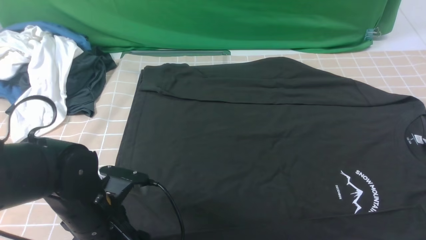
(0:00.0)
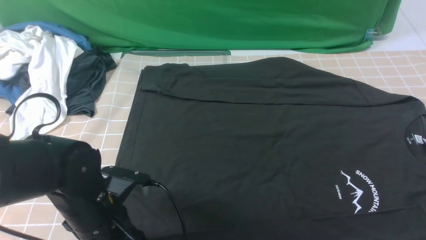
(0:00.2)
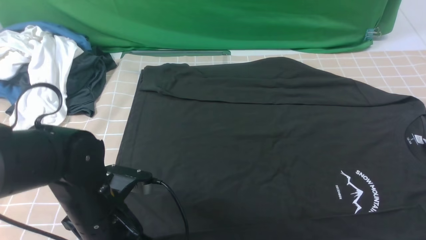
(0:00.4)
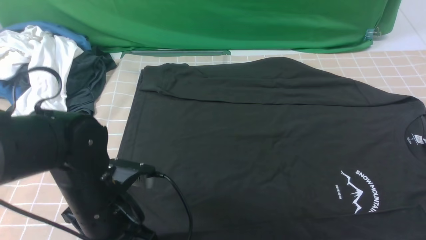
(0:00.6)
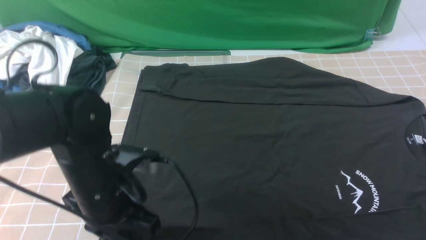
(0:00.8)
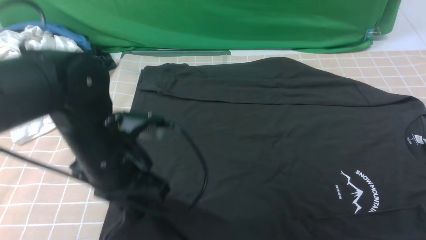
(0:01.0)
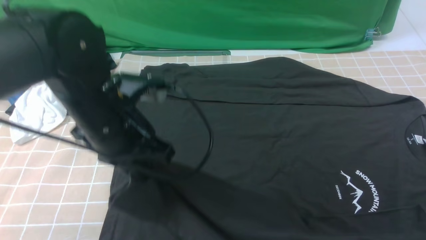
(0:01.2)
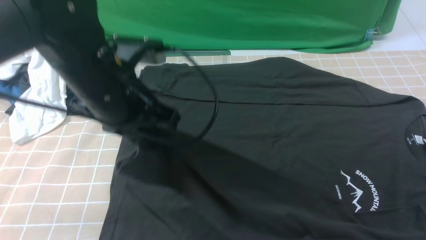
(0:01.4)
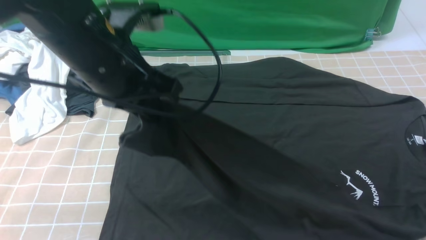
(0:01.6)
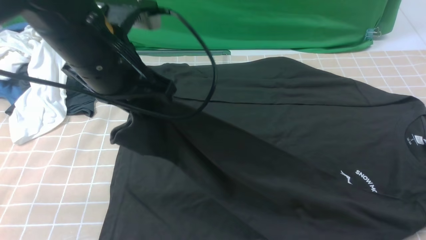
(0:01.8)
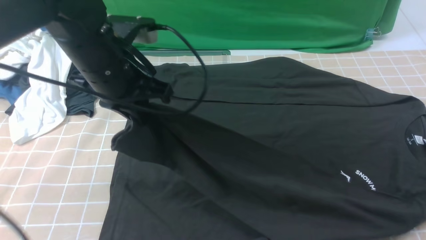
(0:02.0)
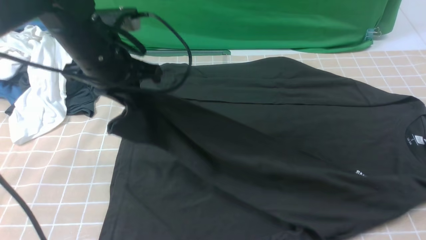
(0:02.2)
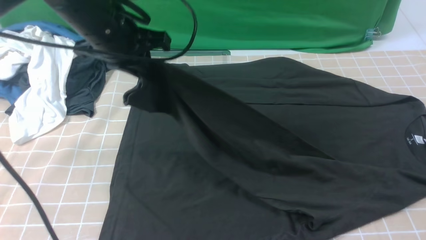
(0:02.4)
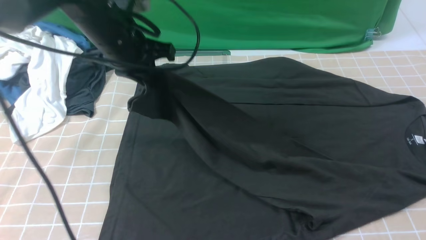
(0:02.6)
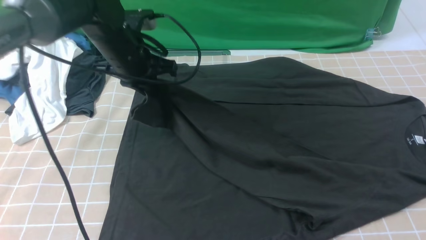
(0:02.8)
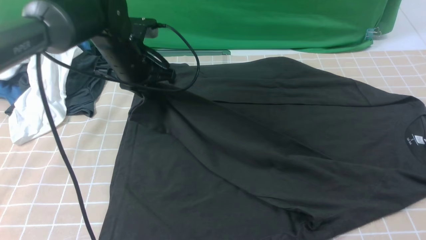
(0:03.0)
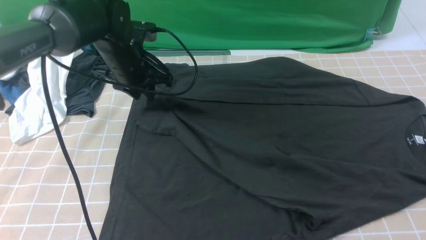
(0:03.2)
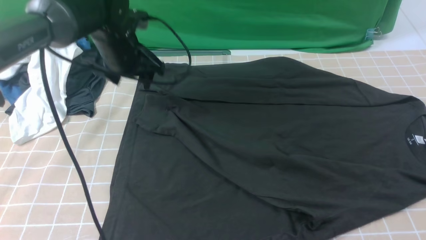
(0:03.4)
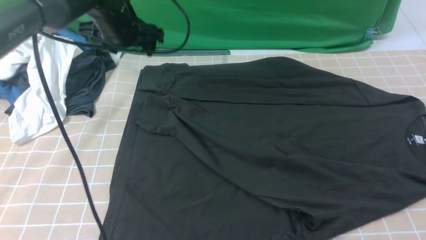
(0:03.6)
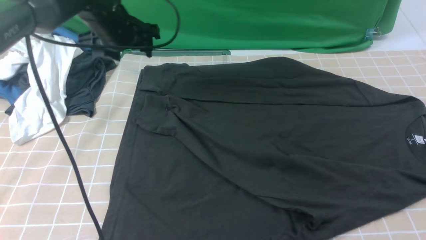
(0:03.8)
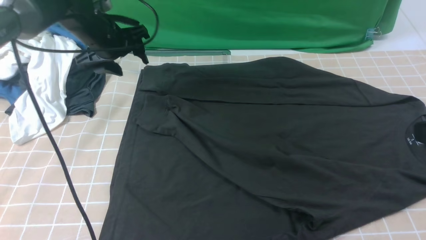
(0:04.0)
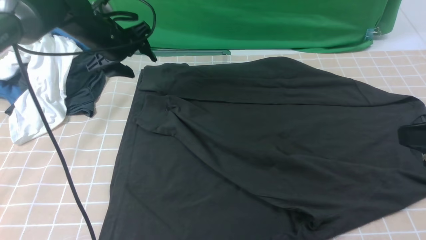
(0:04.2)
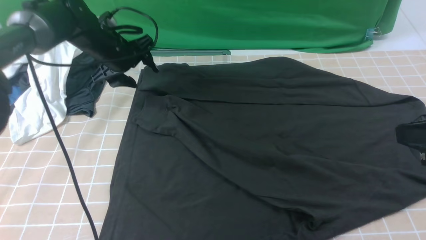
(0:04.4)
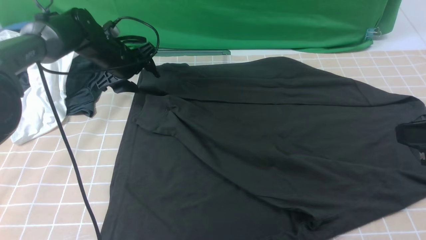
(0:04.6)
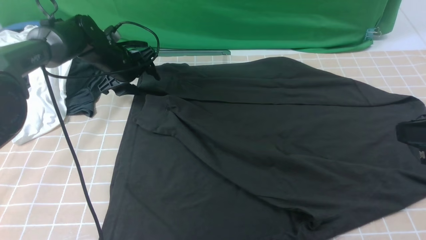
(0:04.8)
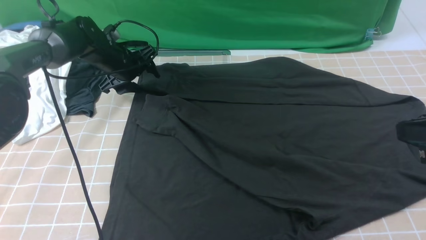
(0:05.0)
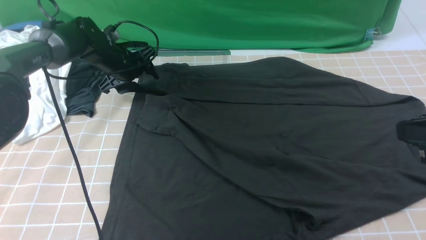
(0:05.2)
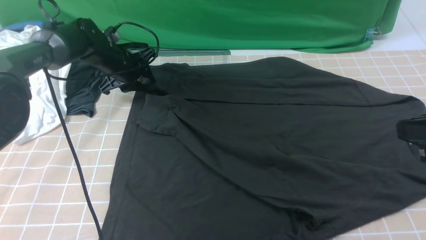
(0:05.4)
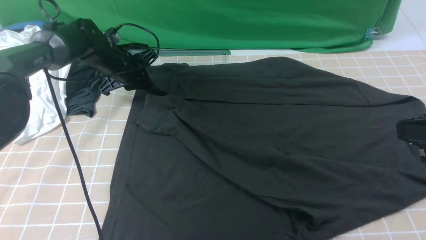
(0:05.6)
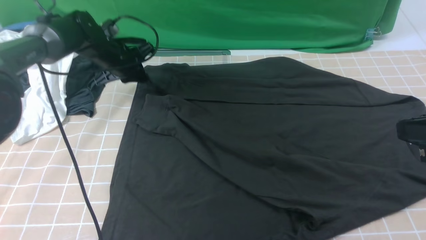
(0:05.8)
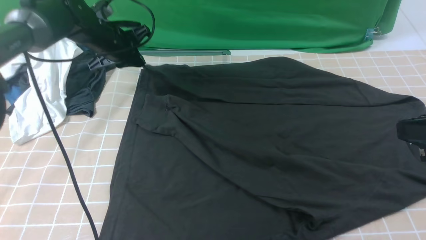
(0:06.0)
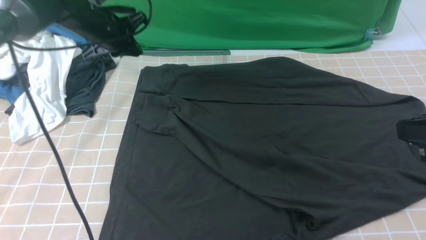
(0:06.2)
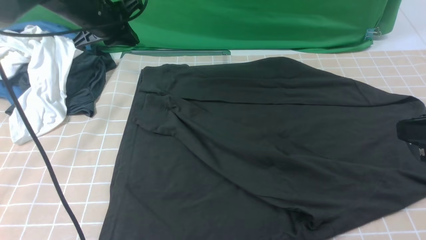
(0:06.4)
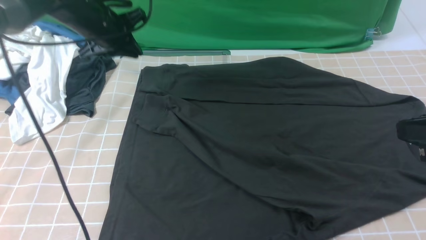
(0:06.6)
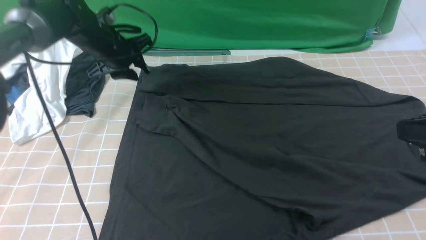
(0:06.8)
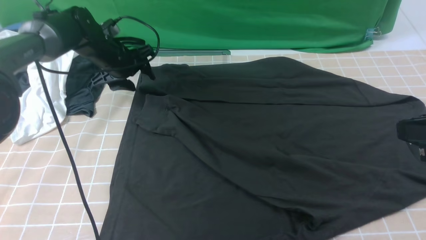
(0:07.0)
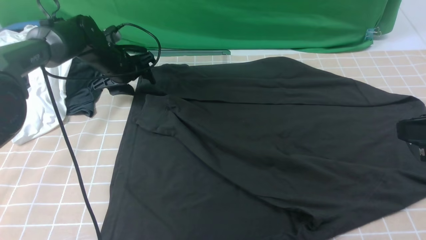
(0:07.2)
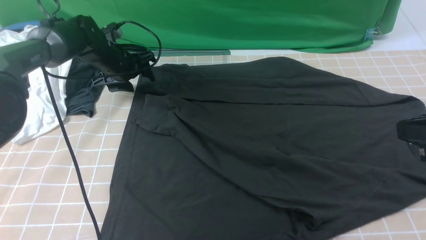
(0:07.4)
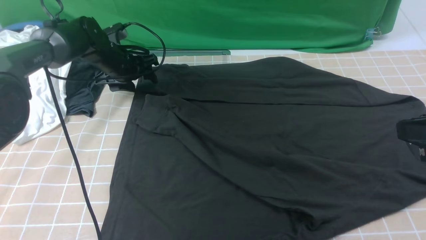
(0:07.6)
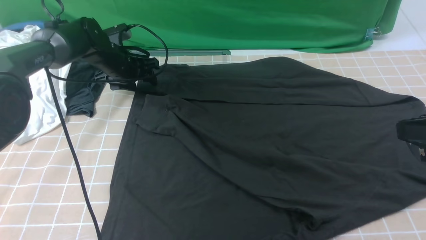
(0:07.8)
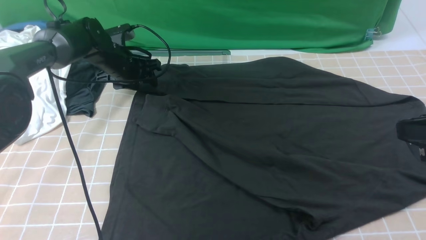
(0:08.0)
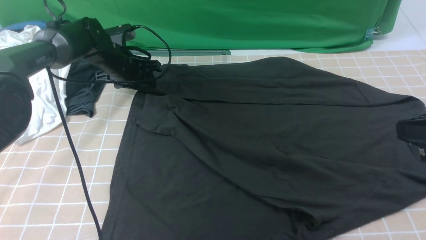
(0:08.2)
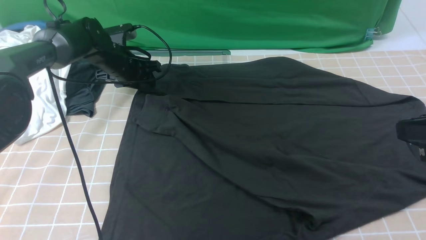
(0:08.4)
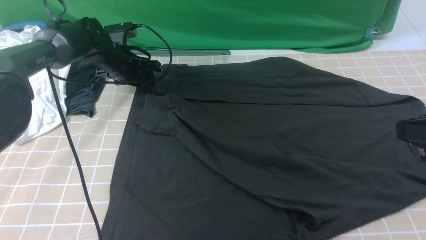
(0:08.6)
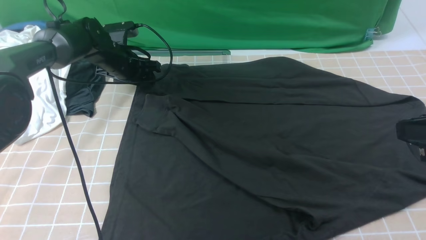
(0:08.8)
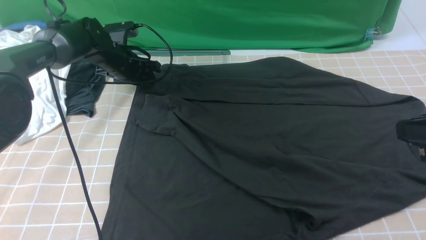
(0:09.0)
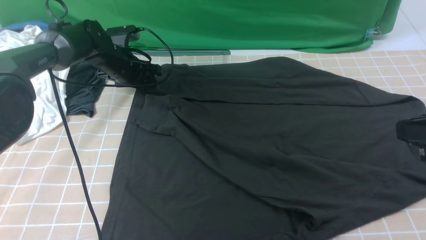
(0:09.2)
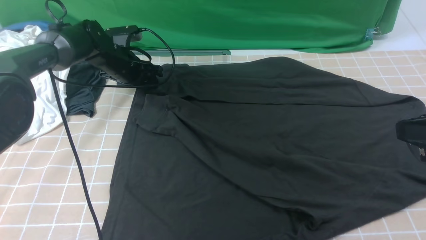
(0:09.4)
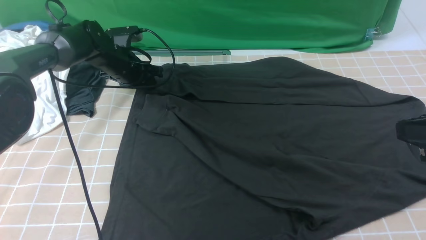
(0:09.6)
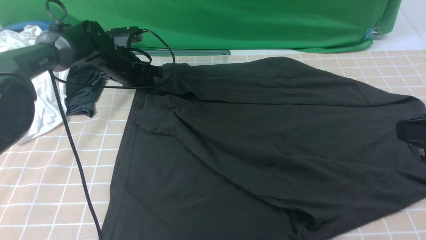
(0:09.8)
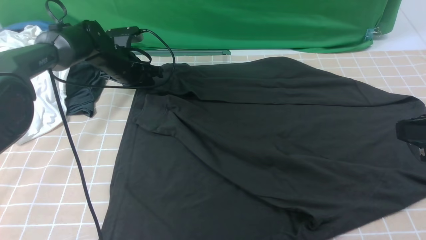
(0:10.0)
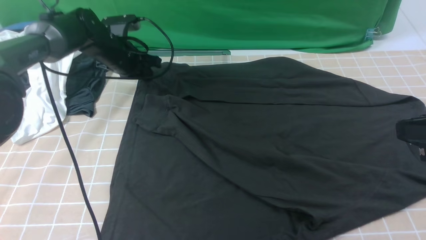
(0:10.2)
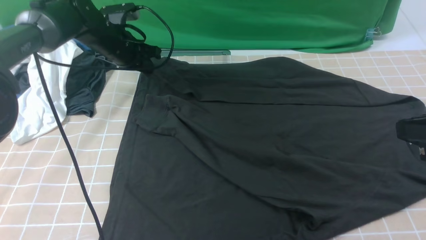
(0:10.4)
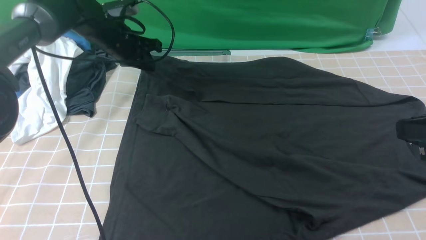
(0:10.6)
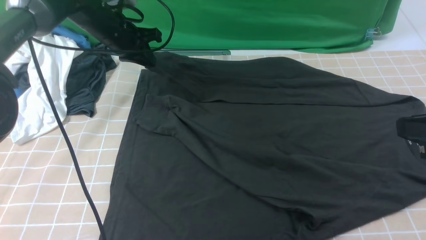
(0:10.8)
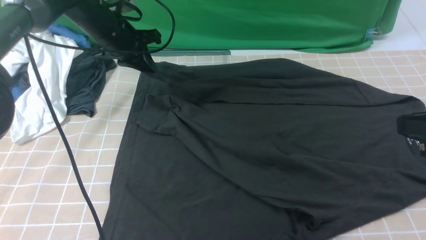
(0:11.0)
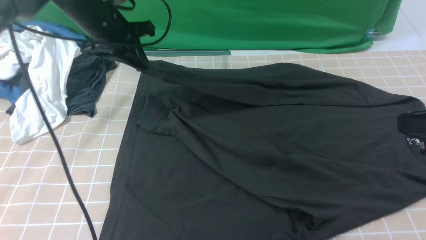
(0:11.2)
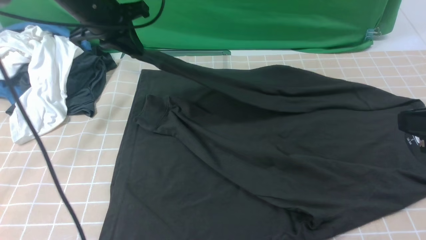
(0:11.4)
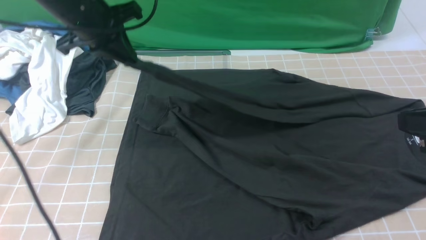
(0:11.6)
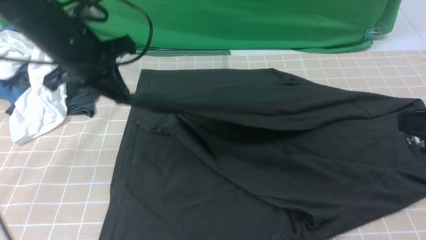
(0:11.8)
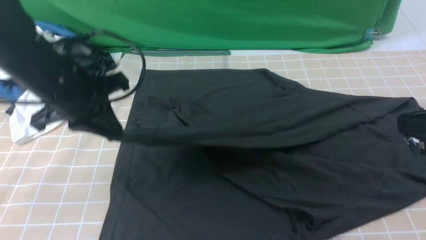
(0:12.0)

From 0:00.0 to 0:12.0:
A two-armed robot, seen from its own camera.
Step, from 0:00.4 to 0:03.2: use the left arm to drag and place the cuff at the centered position on the left edge of the fabric.
Step, from 0:03.6 to 0:10.0: use the left arm to clamp the cuff farthest from it.
From 0:00.0 to 0:01.6: The left gripper travels upward and forward by approximately 20 cm, and closes up.
From 0:01.6 to 0:03.0: The left gripper goes roughly 20 cm forward and downward.
From 0:03.0 to 0:04.4: The left gripper moves forward and to the left, about 10 cm, and opens.
From 0:04.4 to 0:06.0: The left gripper closes.
From 0:06.0 to 0:07.6: The left gripper is displaced downward by some 5 cm, and opens up.
From 0:07.6 to 0:09.0: The grippers make only small movements.
From 0:09.0 to 0:10.4: The left gripper closes its fingers.
From 0:10.4 to 0:12.0: The left gripper travels backward by some 20 cm.

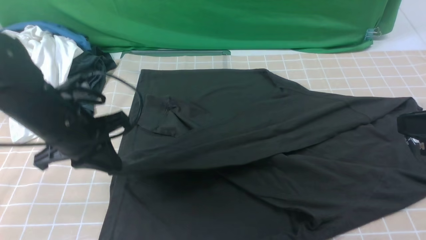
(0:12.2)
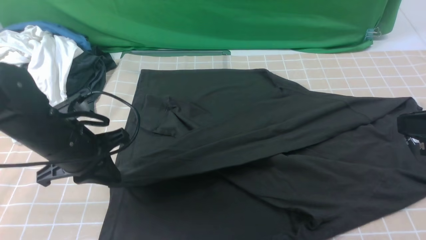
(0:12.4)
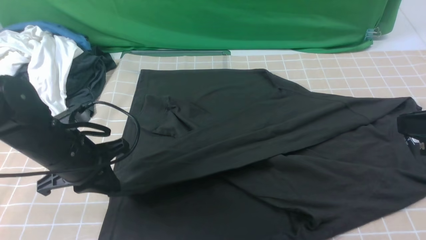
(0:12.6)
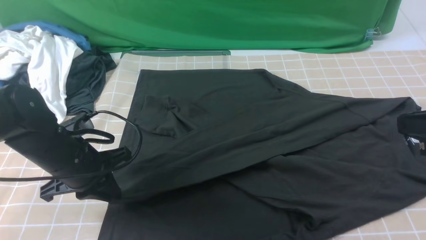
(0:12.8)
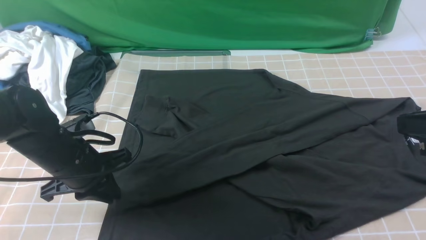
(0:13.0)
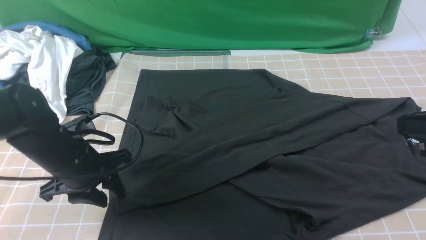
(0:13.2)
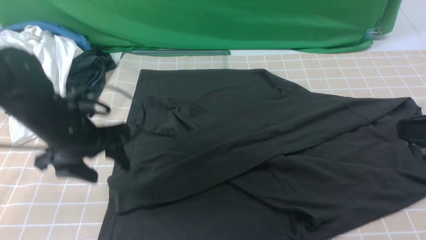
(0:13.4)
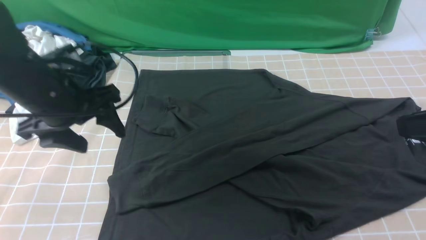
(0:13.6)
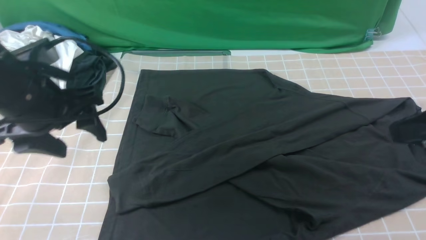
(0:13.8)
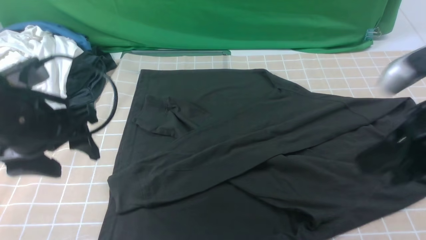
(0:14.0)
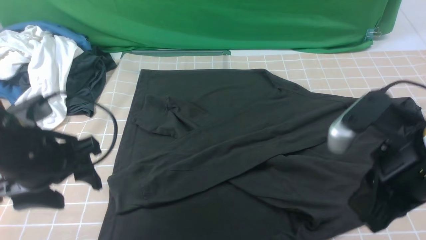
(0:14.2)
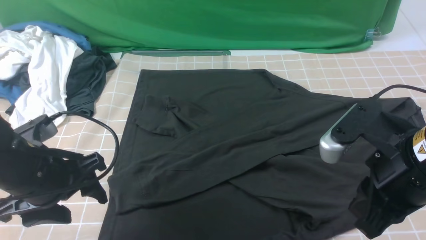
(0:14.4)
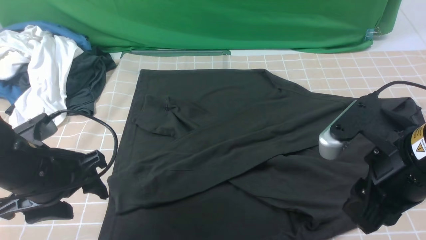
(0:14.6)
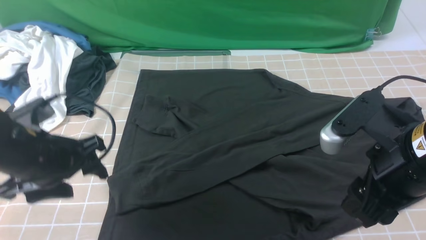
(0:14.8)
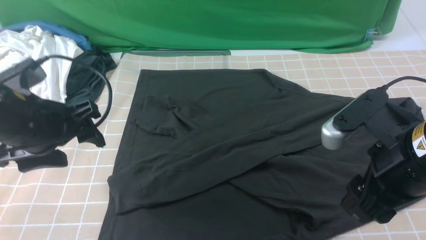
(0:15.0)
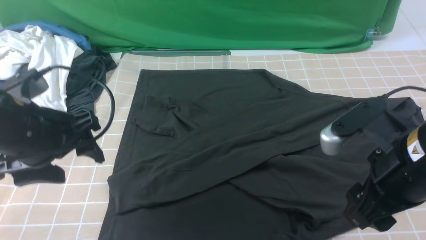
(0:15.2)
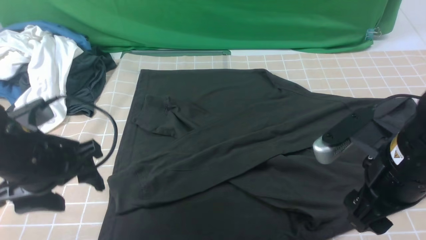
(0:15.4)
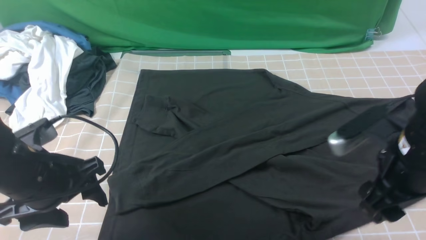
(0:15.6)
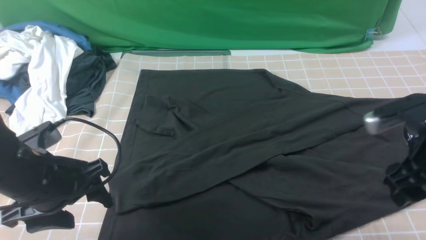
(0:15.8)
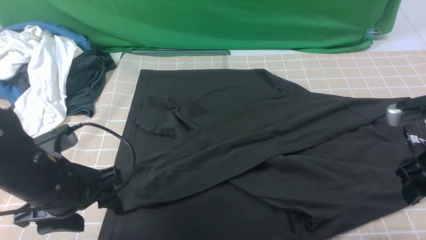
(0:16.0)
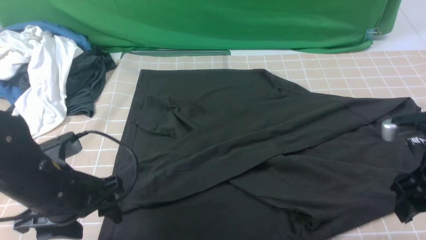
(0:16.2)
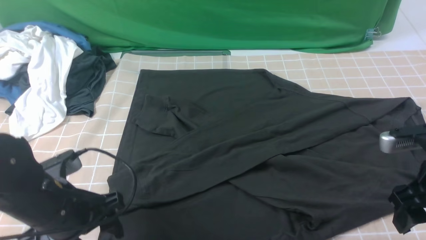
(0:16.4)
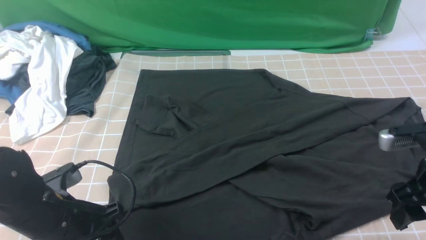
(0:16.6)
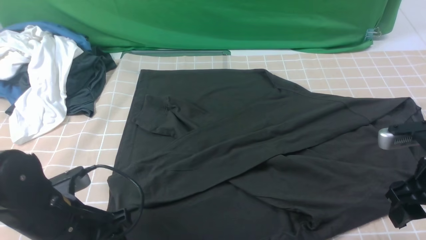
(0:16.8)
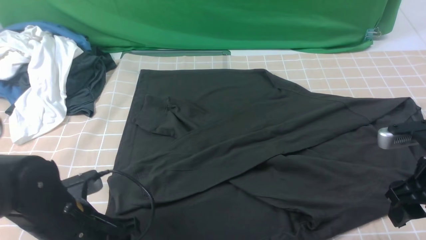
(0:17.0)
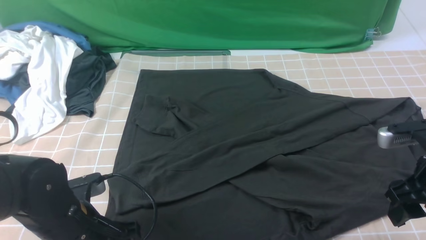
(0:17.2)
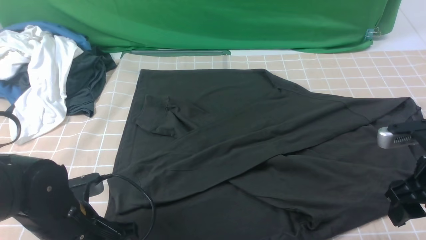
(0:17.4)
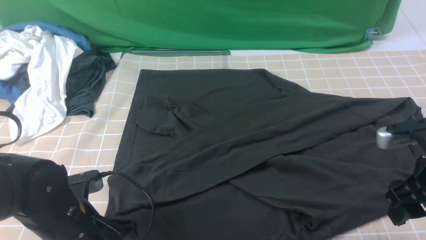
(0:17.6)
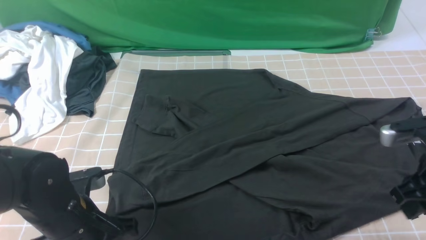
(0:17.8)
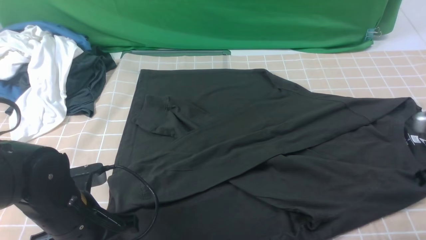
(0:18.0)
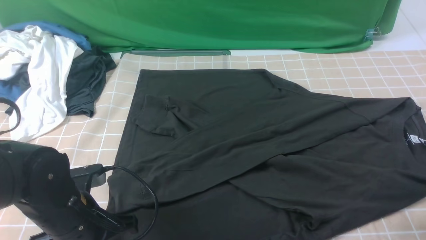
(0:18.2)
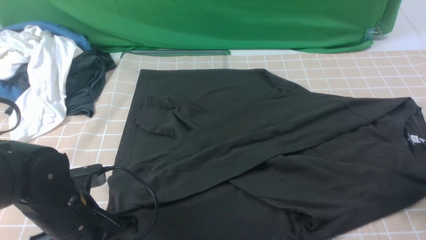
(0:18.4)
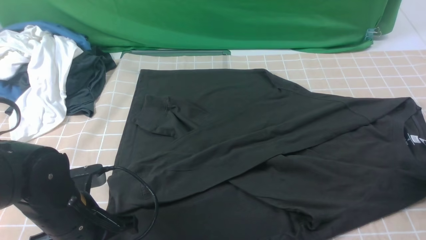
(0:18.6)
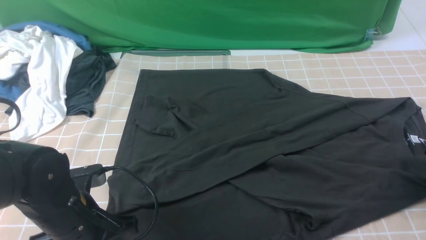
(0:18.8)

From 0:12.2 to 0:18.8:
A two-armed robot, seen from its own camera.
From 0:12.2 to 0:13.8: The left gripper goes some 5 cm upward, and opens.
From 0:13.8 to 0:15.4: The two grippers go roughly 5 cm downward. The right gripper opens.
From 0:15.4 to 0:17.2: The left gripper heads downward, covering approximately 10 cm; the right gripper is displaced to the right by about 10 cm.
From 0:17.2 to 0:18.8: The right gripper shifts approximately 15 cm to the right and forward, and closes, then reopens, while the left gripper closes.
